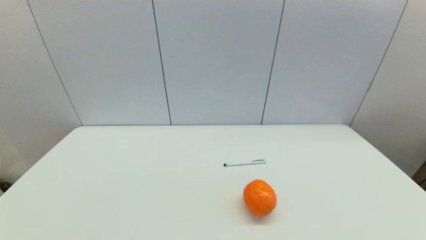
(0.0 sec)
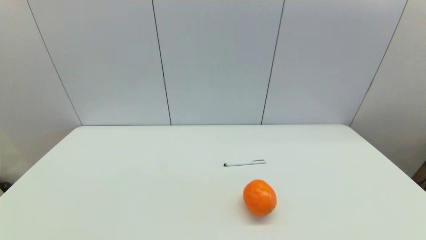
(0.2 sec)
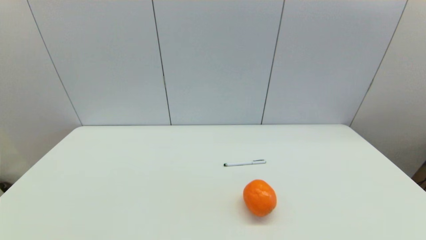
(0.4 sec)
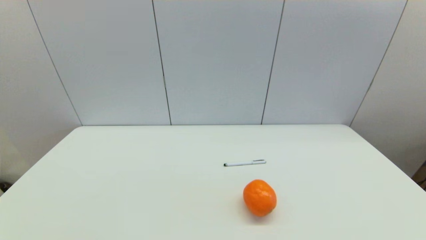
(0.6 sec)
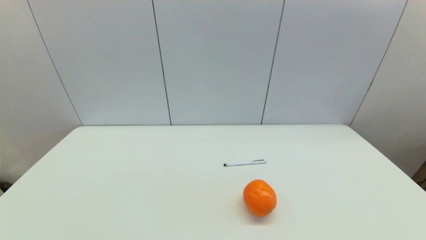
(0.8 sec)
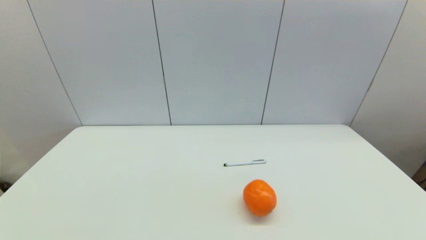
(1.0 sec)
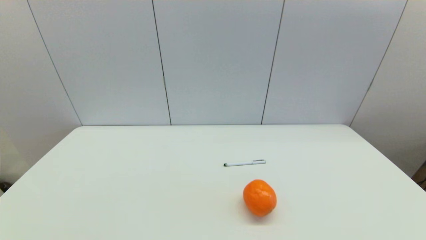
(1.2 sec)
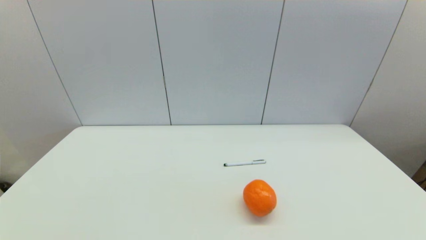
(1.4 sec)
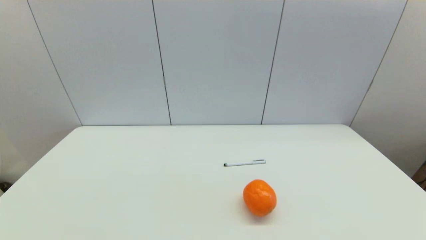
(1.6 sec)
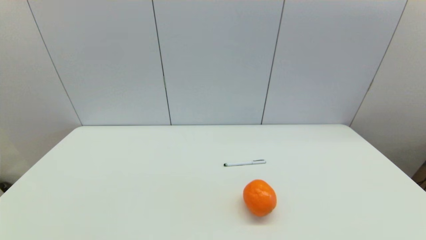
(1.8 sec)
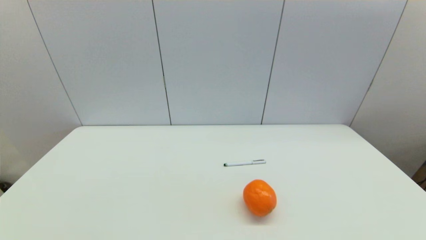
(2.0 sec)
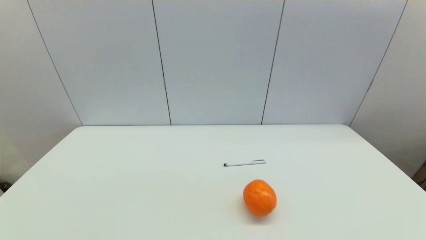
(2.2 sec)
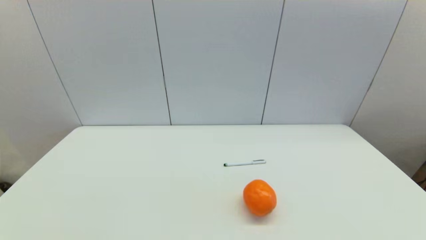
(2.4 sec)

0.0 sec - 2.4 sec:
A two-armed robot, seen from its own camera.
Task of the whole recording: put the pen in the designated position.
1.2 sec - 2.4 sec: Both grippers stay about where they are.
